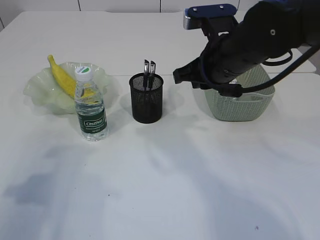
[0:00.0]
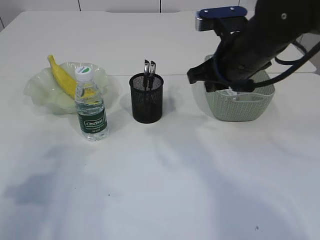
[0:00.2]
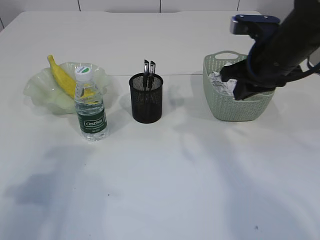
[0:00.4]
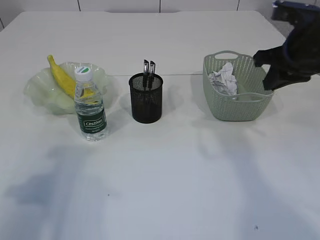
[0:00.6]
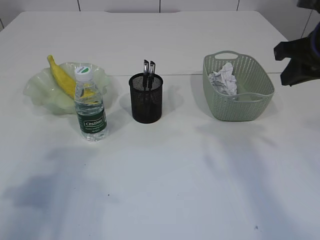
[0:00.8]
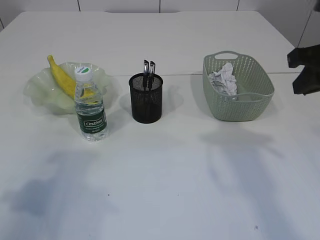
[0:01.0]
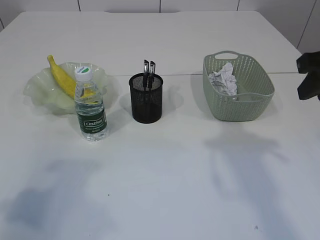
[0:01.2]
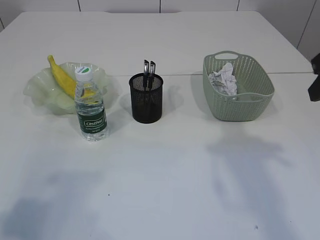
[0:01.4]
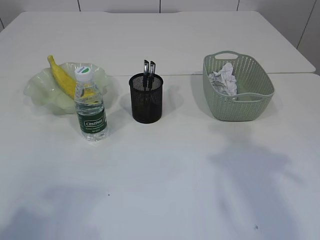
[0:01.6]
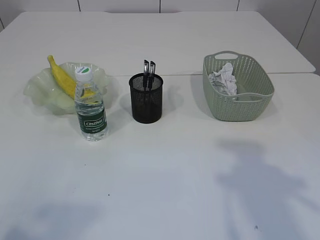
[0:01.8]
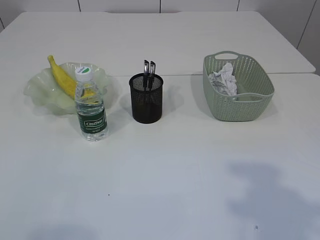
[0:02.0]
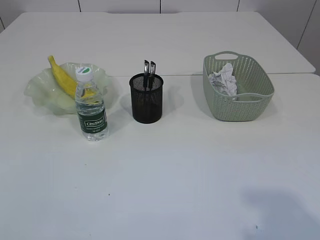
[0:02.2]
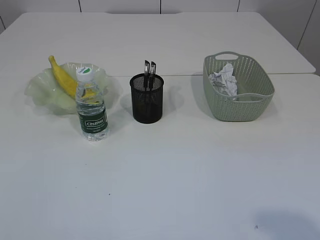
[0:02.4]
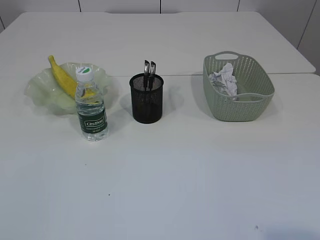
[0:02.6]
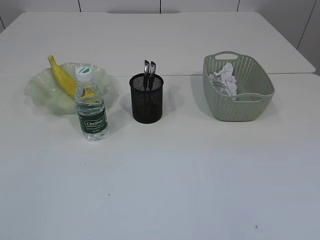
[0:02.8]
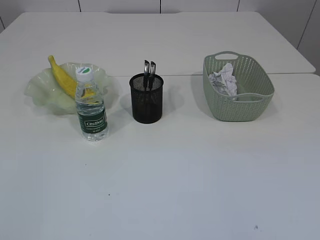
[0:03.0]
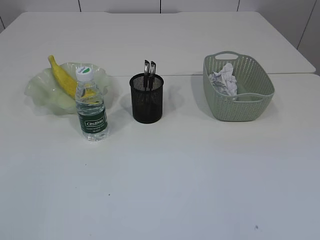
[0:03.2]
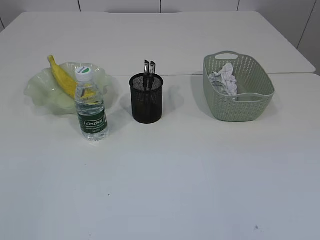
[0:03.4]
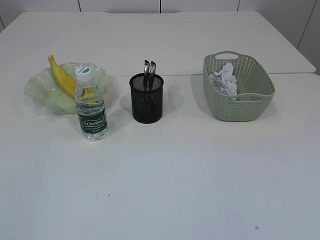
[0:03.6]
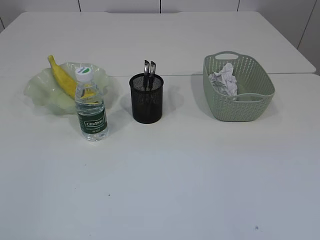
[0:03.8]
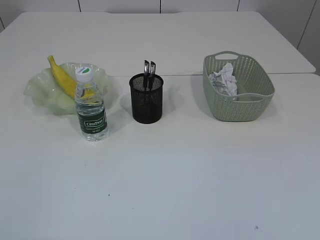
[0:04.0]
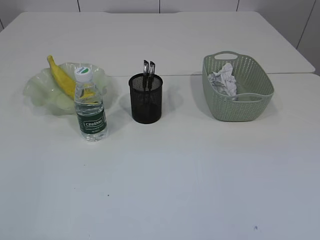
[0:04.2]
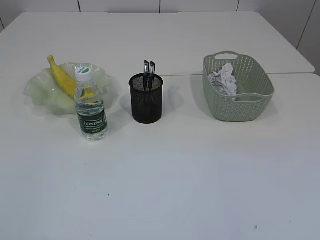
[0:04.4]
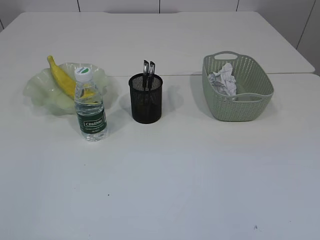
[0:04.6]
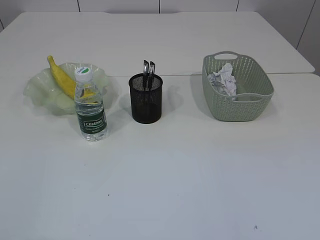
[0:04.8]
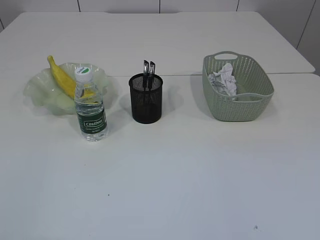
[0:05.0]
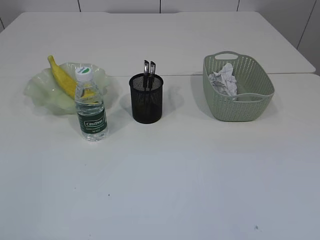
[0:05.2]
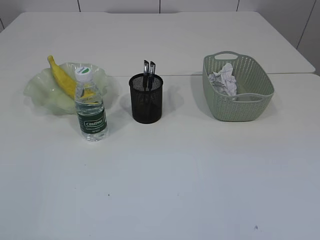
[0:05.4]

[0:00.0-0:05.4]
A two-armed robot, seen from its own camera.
0:00.0 to 0:01.4: The right gripper shifts about 20 cm to the right, backward and upward, and opens its fingers. The left gripper goes about 10 cm backward.
0:01.4 to 0:02.8: The left gripper goes about 15 cm backward.
0:04.0 to 0:05.4: Both grippers stay about where they are.
